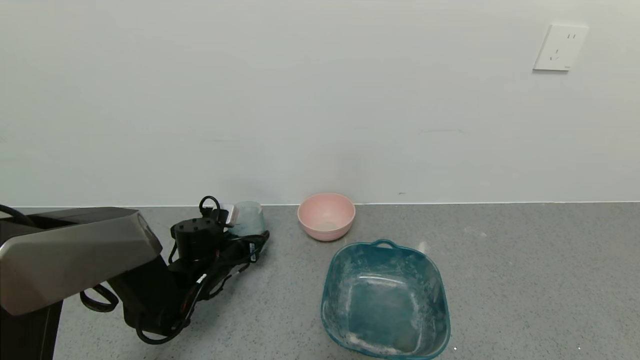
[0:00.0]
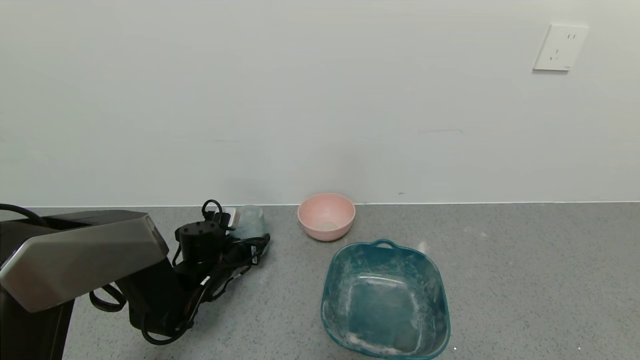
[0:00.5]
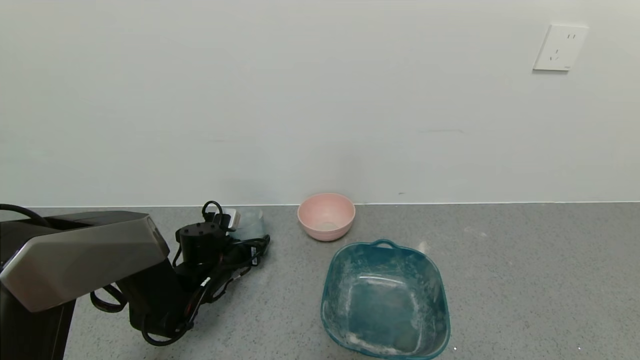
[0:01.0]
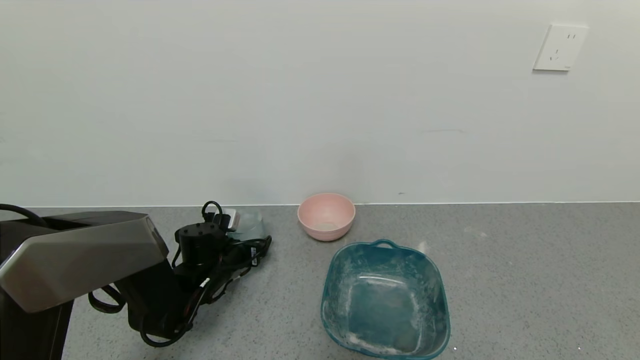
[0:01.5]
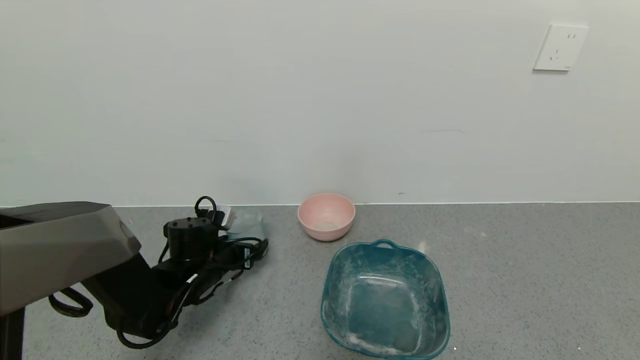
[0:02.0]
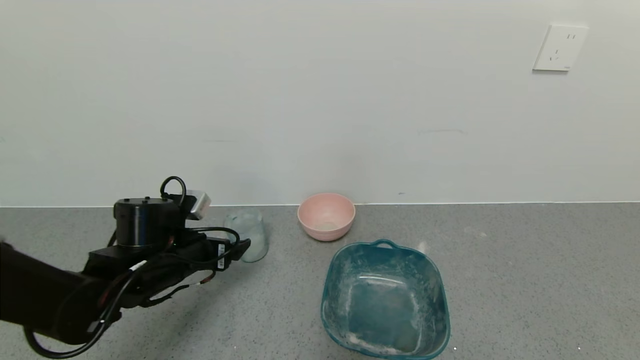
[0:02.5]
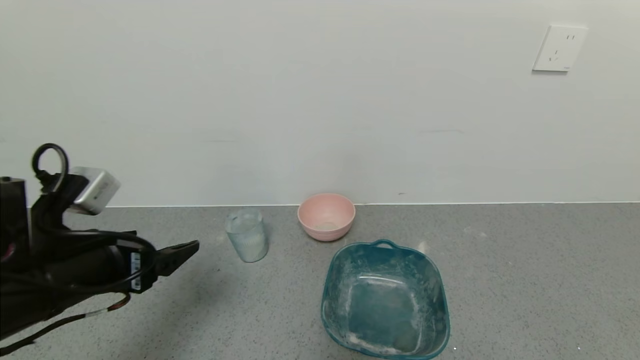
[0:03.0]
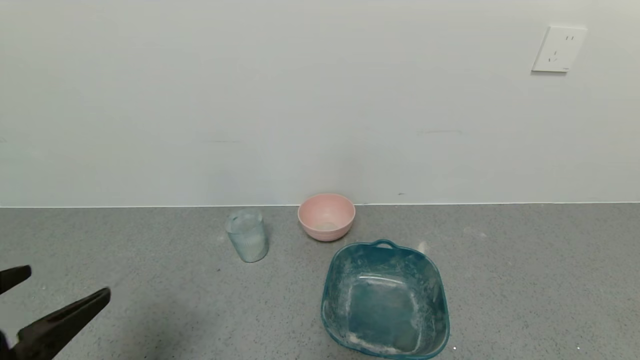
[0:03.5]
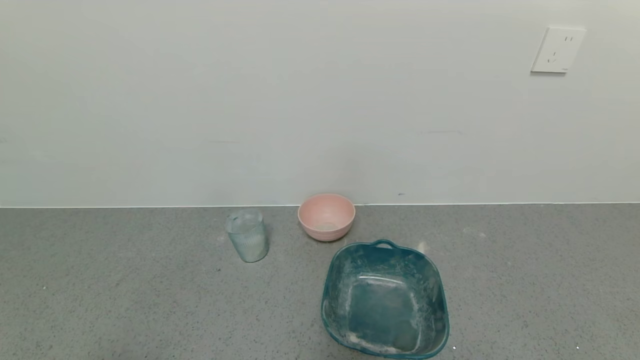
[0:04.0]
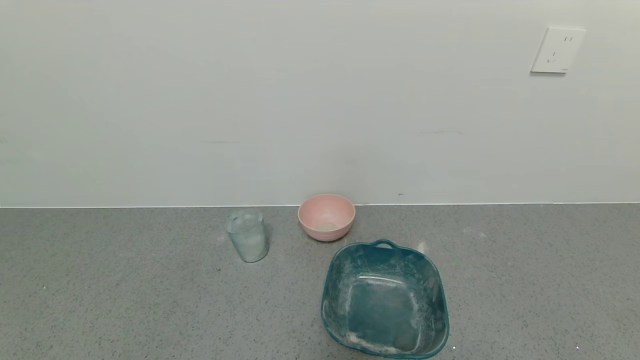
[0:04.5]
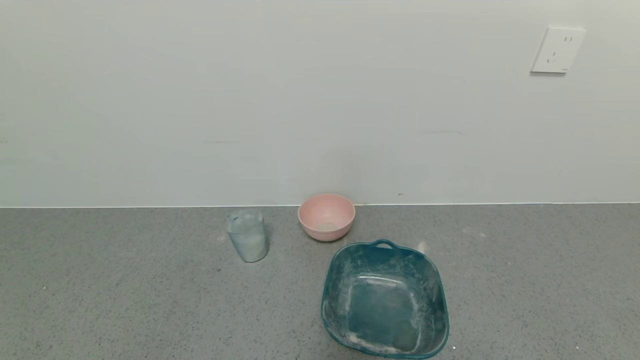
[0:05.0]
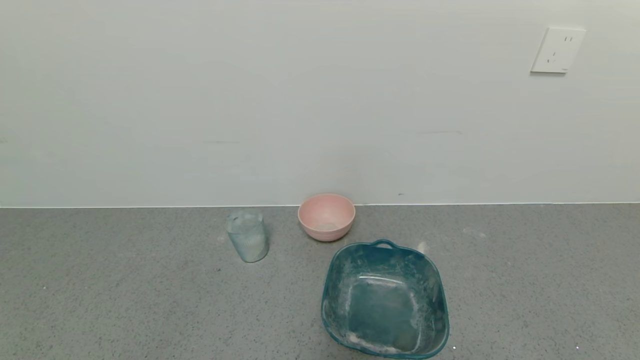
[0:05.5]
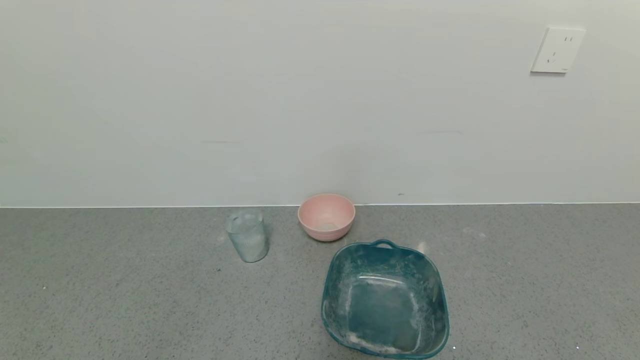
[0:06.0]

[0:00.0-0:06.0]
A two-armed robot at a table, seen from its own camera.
Task of the whole recording: use a gripper to pick up the cup and pour the powder into a bowl or tray.
Step, 0:00.0 to 0:02.0: Place the glass cup down with the left gripper.
0:00.0 to 0:02.0: The left gripper opens.
0:02.0 to 0:04.0: The left gripper heads backward and upward, covering some 40 cm.
